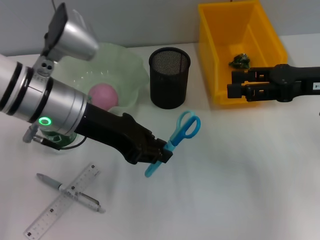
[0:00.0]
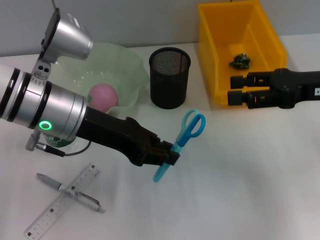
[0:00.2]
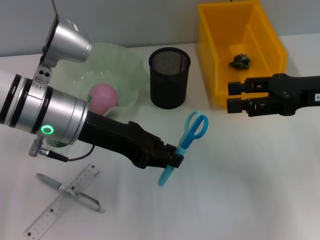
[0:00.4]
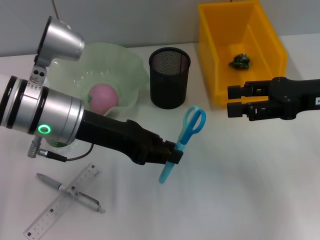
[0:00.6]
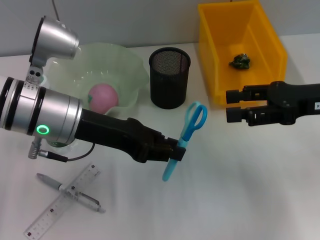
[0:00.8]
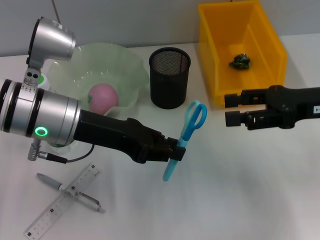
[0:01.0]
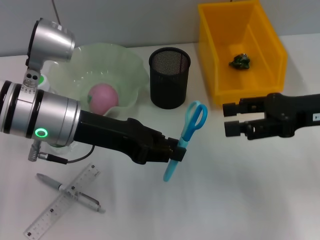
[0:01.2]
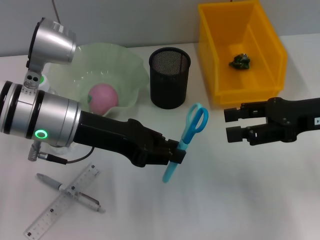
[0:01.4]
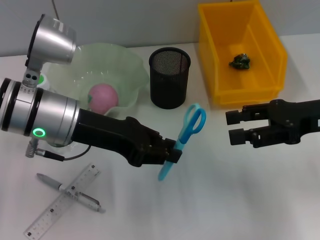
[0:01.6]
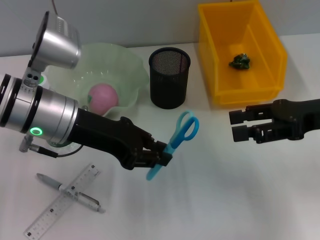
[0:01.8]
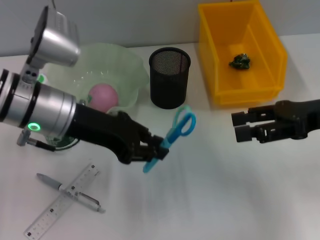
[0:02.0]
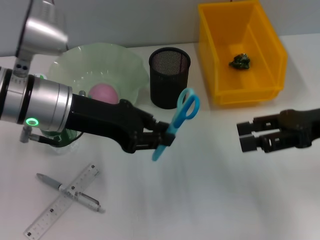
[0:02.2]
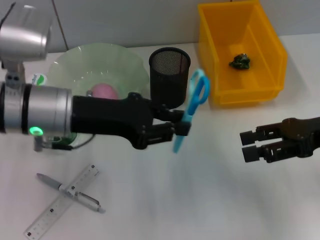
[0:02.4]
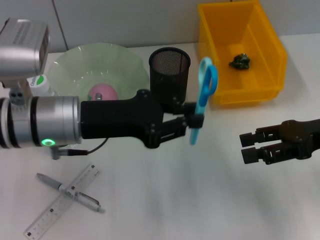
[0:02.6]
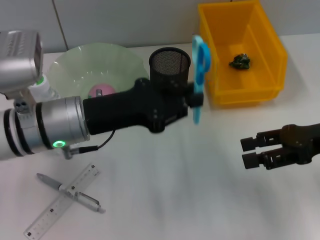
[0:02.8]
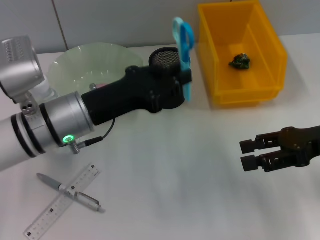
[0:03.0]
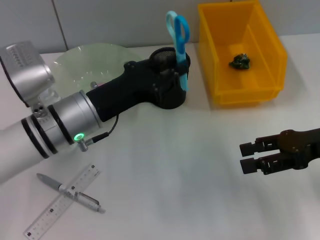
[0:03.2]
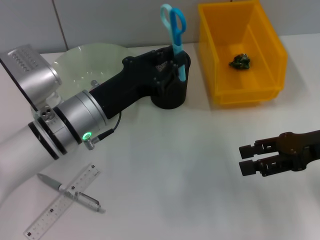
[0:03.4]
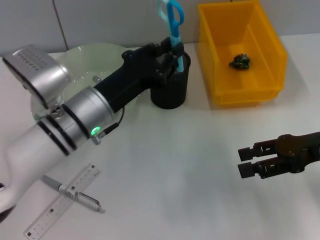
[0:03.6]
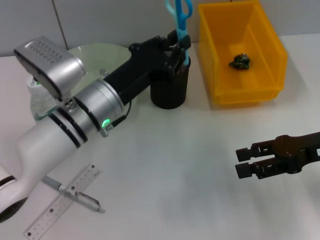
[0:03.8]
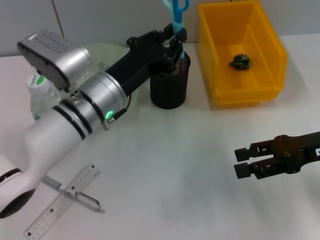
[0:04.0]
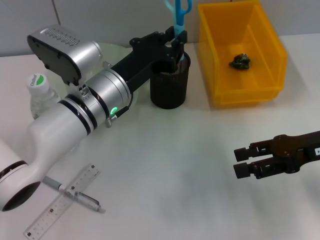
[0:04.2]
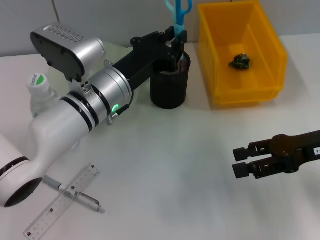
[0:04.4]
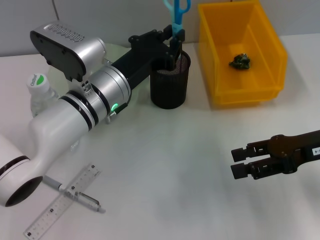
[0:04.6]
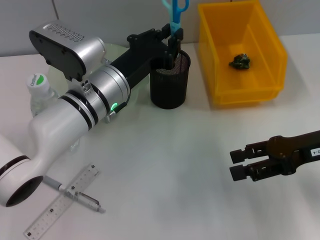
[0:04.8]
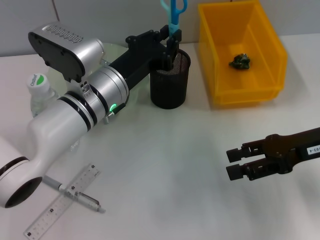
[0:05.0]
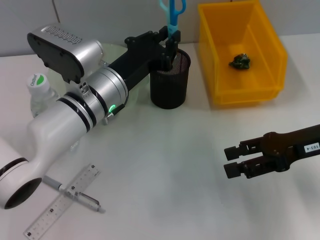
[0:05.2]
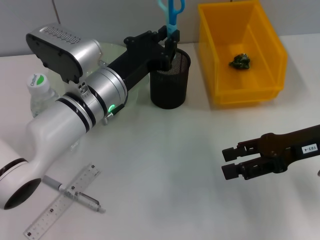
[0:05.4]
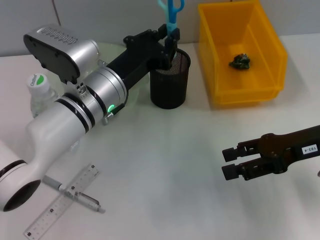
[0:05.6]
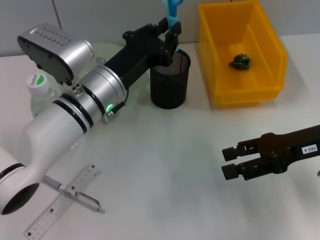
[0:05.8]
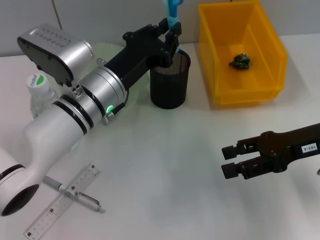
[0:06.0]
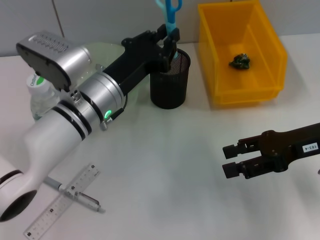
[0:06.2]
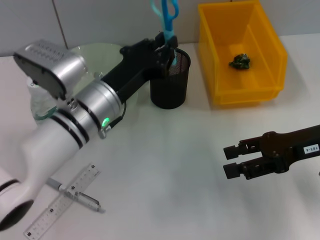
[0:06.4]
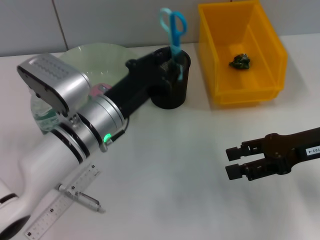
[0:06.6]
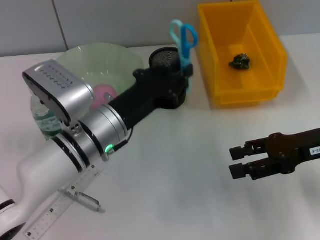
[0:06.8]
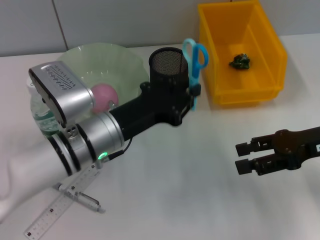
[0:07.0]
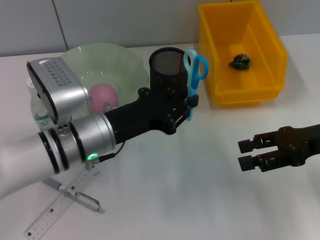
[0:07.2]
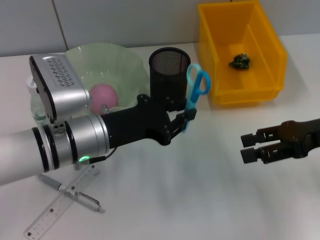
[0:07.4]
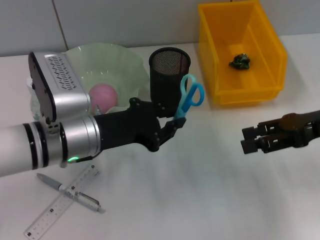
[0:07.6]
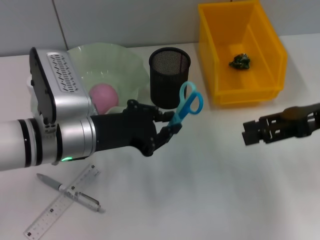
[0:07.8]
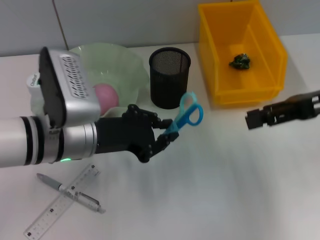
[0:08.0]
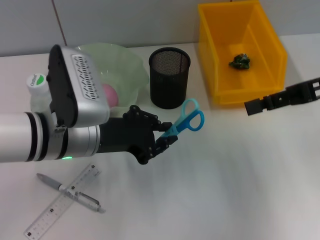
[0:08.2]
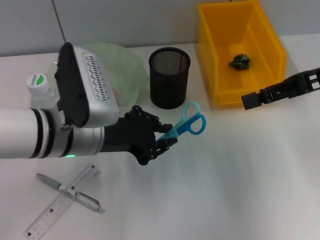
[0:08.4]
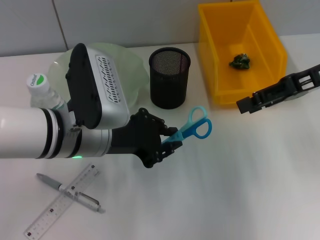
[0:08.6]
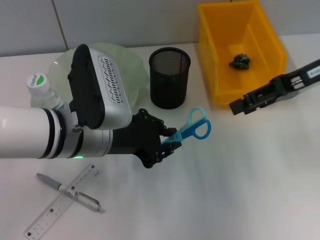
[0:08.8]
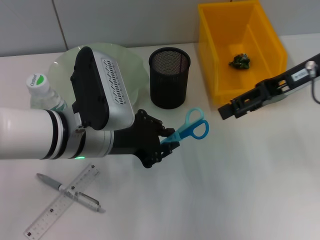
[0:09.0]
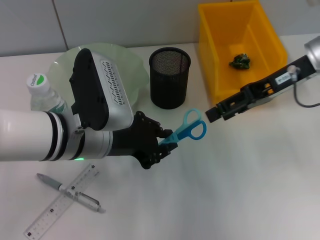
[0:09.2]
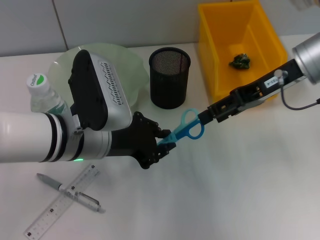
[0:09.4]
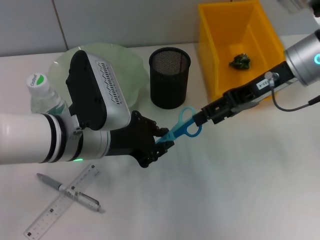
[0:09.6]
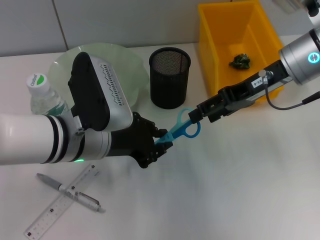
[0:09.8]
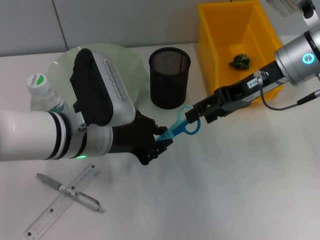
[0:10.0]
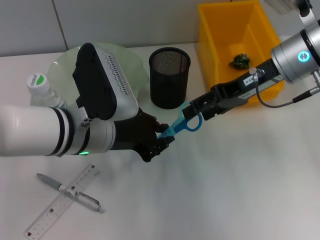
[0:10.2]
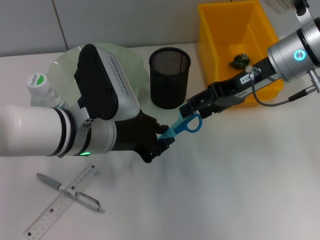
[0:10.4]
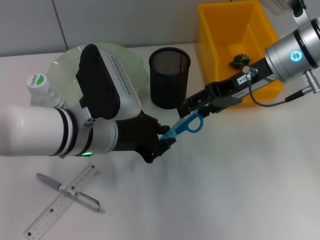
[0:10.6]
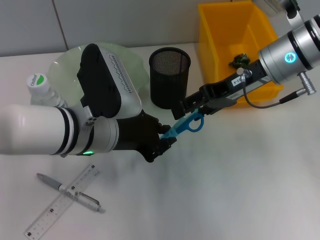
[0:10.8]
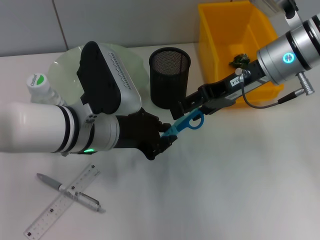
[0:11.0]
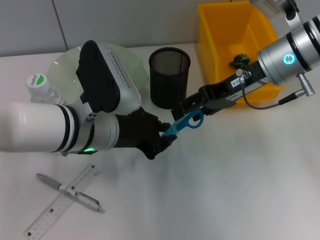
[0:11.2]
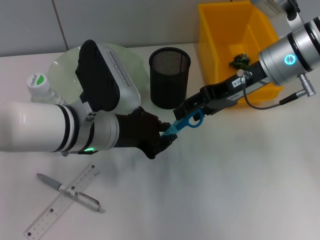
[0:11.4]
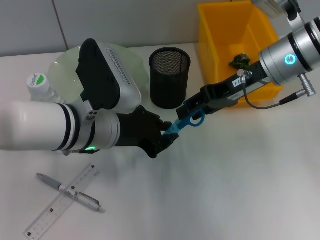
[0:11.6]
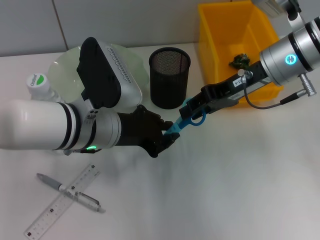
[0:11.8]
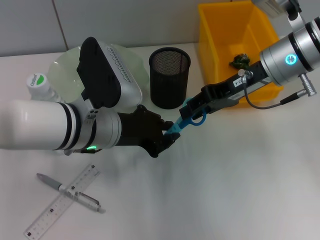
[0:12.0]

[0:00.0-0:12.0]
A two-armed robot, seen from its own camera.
0:01.6 to 0:03.0: The left gripper is displaced downward by some 5 cm.
0:03.0 to 0:04.4: The left gripper moves to the right, approximately 5 cm.
0:04.4 to 0:06.0: The grippers stay close to where they were, moving slightly.
0:06.0 to 0:07.6: The left gripper ends up approximately 5 cm from where it was.
0:07.6 to 0:09.0: The right gripper moves forward and upward, roughly 10 cm.
0:09.0 to 0:10.4: The right gripper travels to the left by about 5 cm.
0:10.4 to 0:12.0: The right gripper closes up.

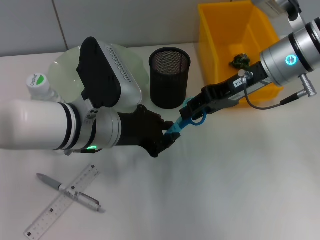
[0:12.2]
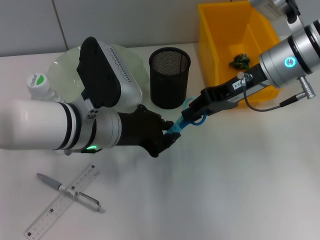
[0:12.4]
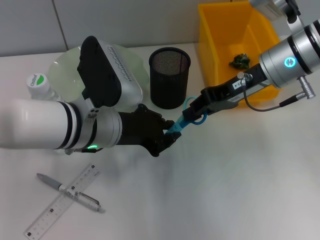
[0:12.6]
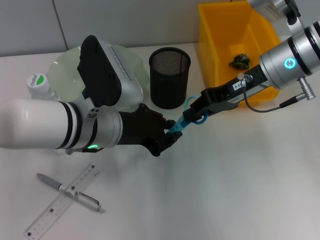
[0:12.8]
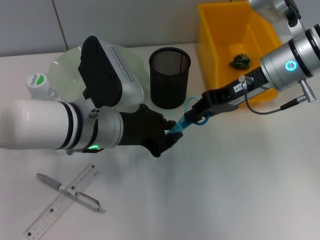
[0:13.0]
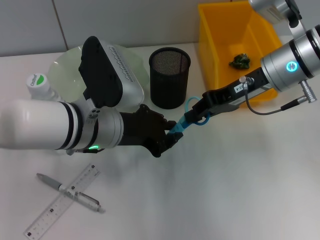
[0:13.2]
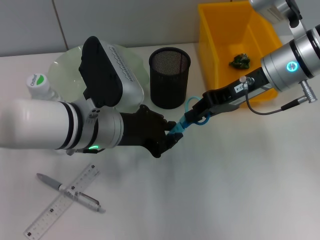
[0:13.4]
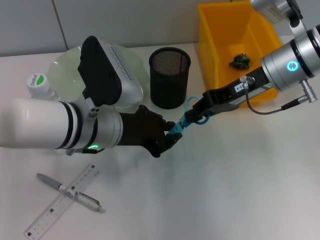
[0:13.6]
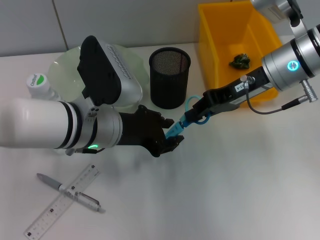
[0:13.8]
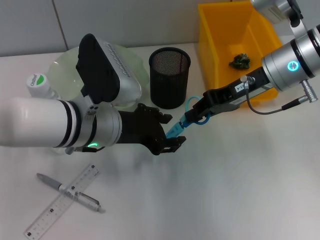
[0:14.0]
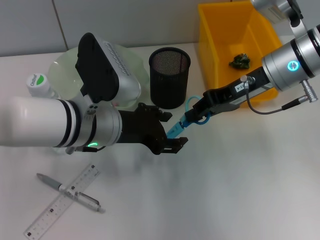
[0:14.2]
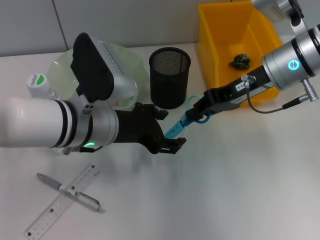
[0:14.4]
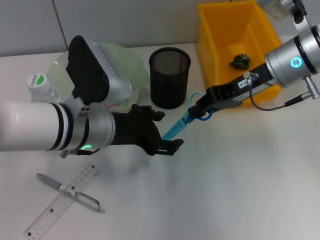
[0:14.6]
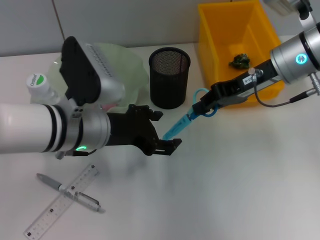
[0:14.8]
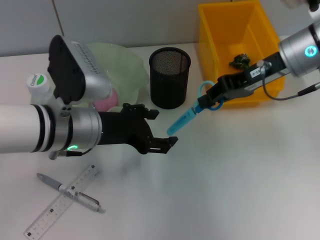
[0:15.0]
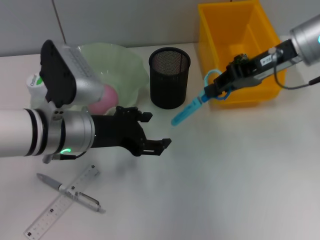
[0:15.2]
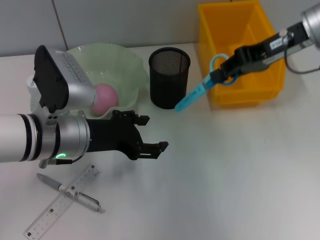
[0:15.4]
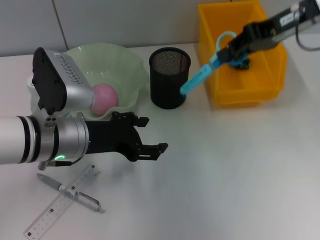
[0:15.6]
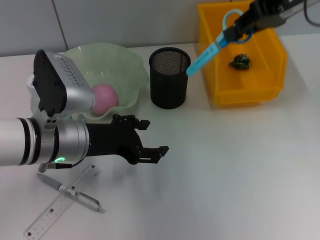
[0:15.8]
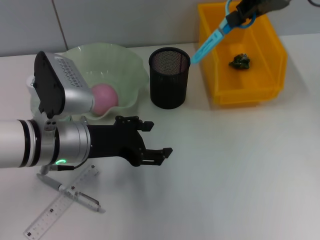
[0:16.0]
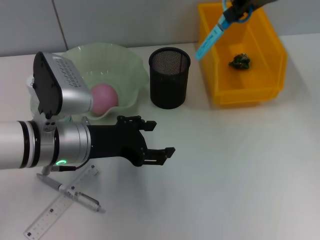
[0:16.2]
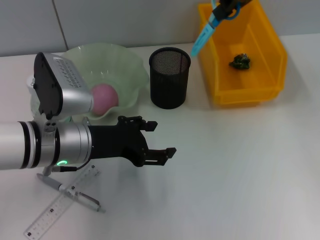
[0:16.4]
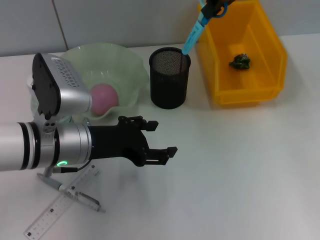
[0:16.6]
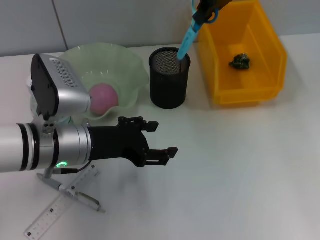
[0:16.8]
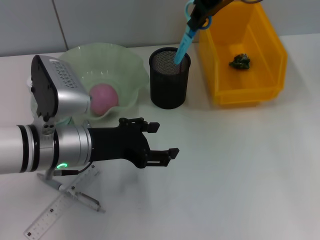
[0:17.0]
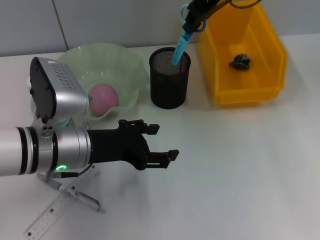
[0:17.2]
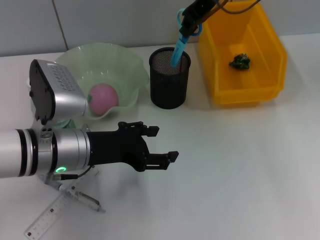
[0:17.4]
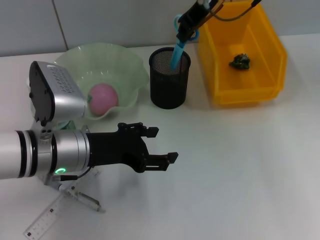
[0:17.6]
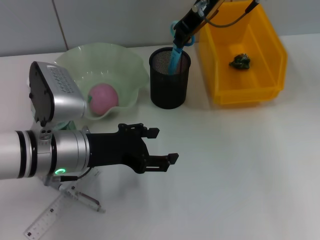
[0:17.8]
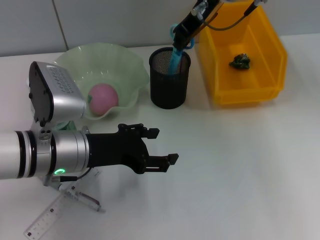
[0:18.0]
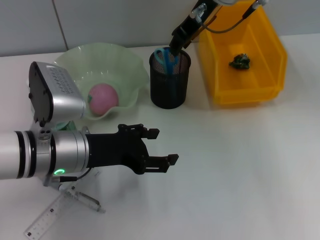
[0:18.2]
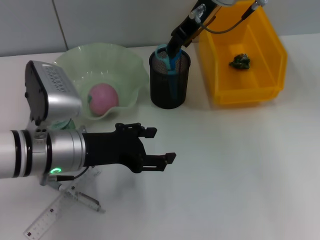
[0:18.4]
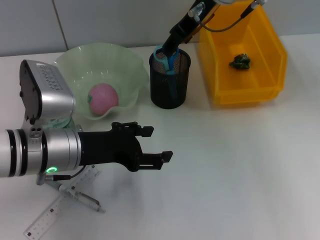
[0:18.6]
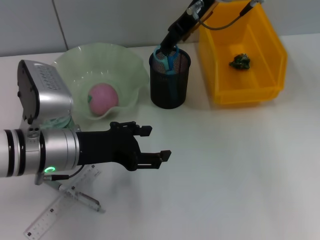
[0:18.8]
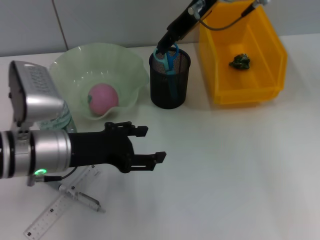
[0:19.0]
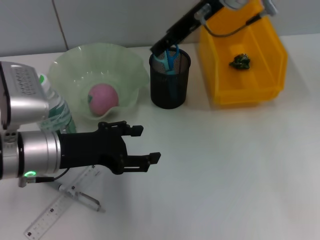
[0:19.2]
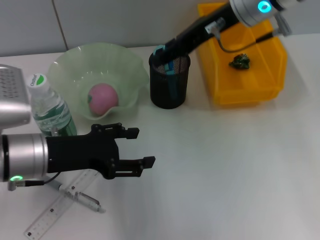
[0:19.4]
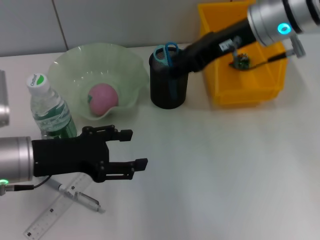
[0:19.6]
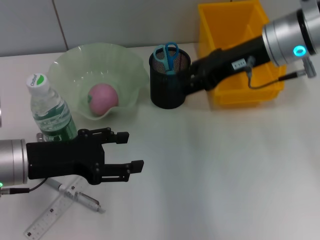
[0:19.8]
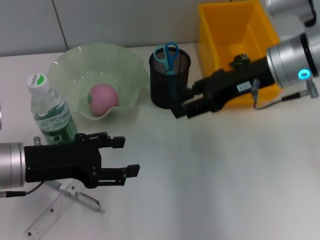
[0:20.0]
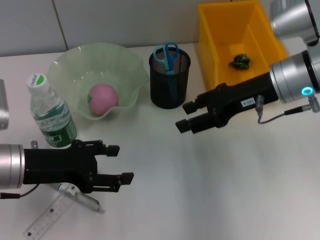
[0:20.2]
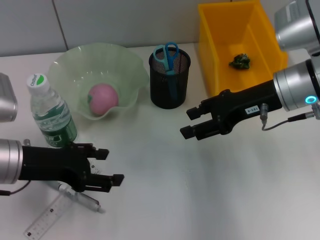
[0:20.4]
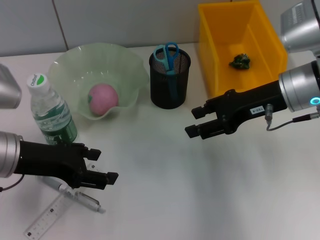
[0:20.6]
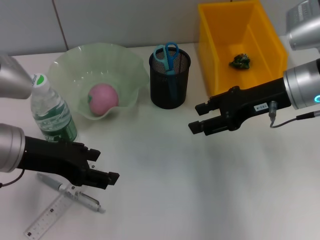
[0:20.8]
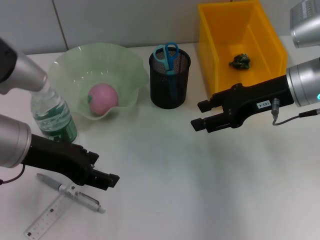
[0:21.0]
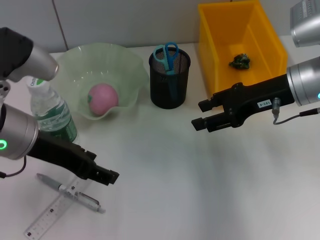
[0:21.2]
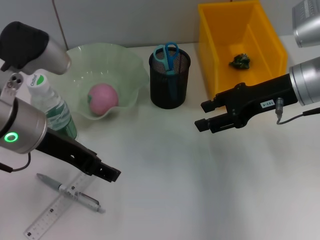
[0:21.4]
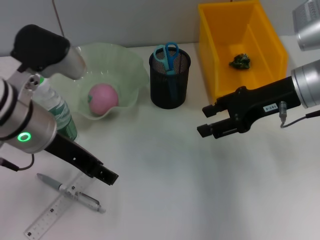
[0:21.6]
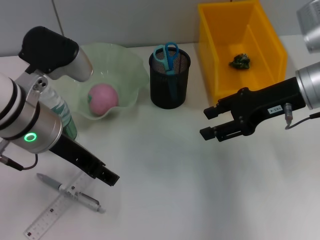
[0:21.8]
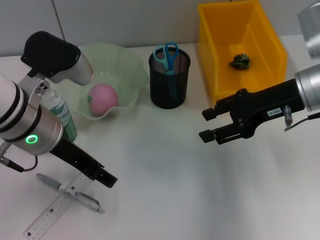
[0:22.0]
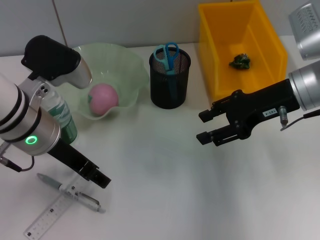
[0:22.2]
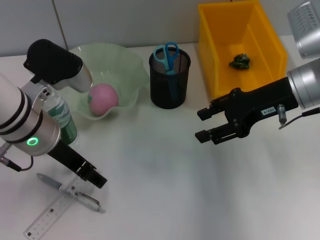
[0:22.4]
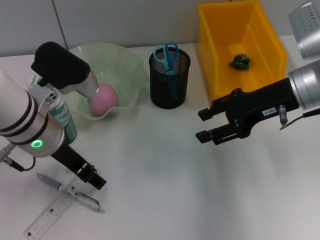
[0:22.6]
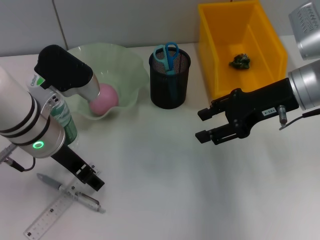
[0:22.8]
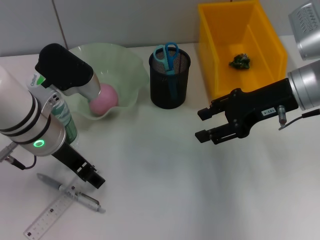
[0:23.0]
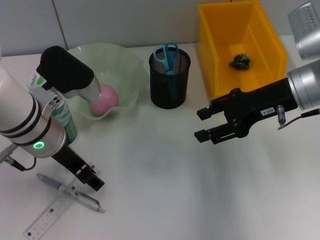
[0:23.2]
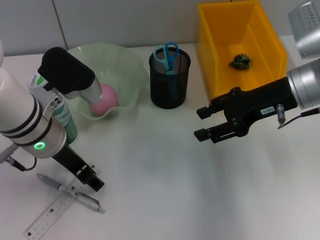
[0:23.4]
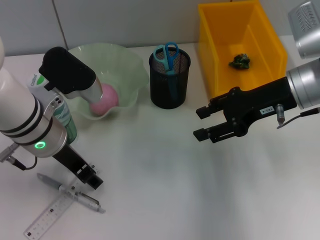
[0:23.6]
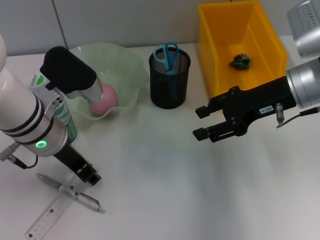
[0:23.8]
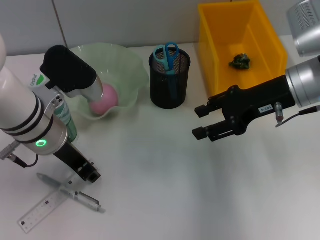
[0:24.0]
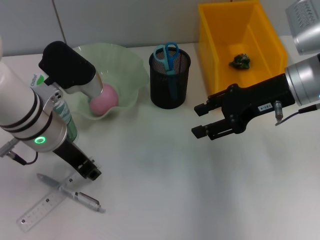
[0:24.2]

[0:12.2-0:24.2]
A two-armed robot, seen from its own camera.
Step, 0:14.2 to 0:18.4: Place the blue scissors into the pen holder with the right hand.
Step, 0:18.6 to 0:23.8: Grab the ruler with the left hand.
0:12.2 to 0:13.8: The right gripper closes up.
0:13.8 to 0:15.2: The left gripper opens its fingers. The right gripper changes place by roughly 5 cm.
0:15.2 to 0:16.6: The right gripper shifts about 15 cm upward, forward and to the left.
0:16.6 to 0:18.2: The right gripper travels to the left and downward by about 10 cm.
0:18.2 to 0:19.8: The right gripper heads to the right, backward and downward, covering about 15 cm, and opens up; the left gripper goes some 5 cm to the left.
0:19.8 to 0:21.2: The right gripper changes place by some 5 cm. The left gripper is displaced upward by some 5 cm.
0:21.2 to 0:22.6: The left gripper changes place by roughly 5 cm.
0:22.6 to 0:24.2: The left gripper closes its fingers.
